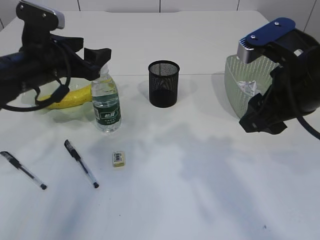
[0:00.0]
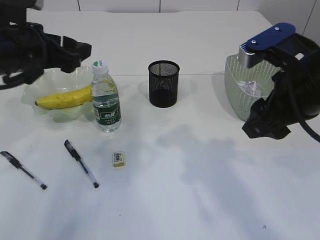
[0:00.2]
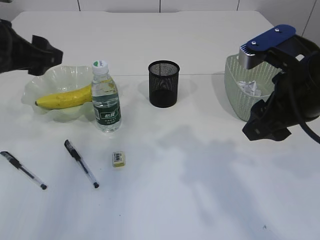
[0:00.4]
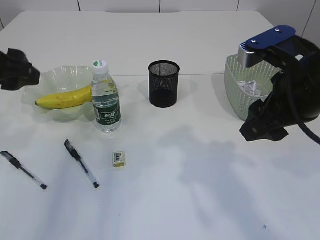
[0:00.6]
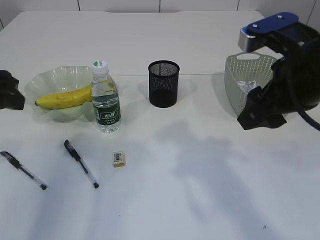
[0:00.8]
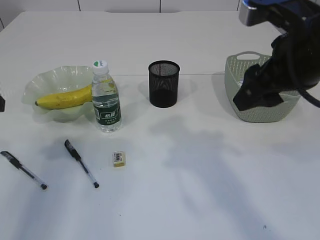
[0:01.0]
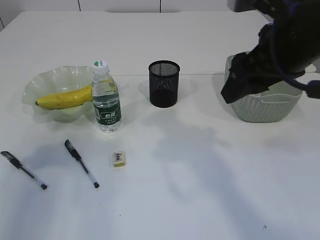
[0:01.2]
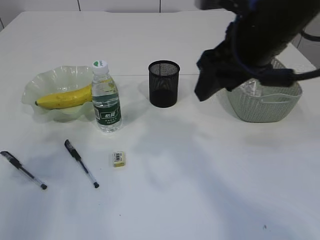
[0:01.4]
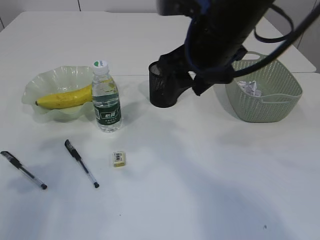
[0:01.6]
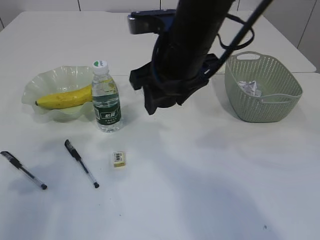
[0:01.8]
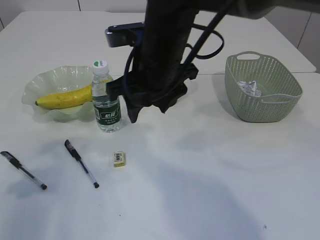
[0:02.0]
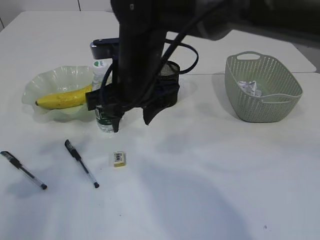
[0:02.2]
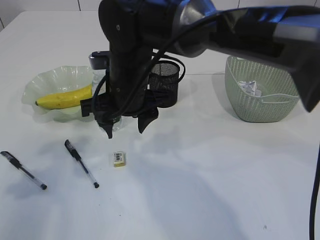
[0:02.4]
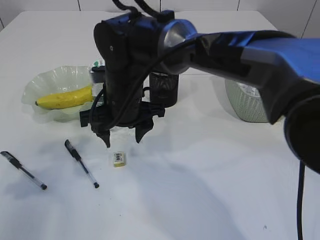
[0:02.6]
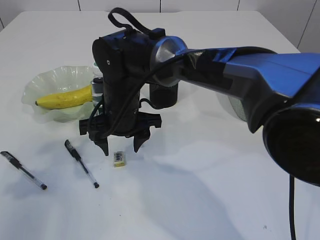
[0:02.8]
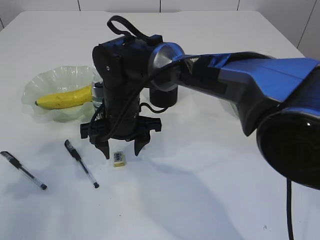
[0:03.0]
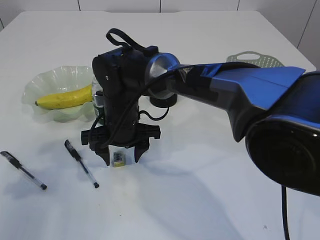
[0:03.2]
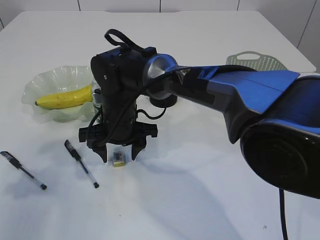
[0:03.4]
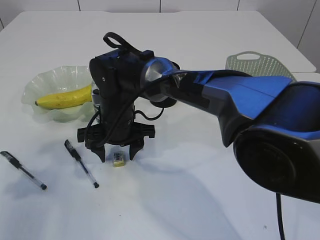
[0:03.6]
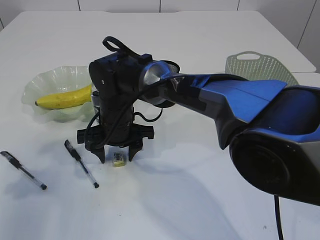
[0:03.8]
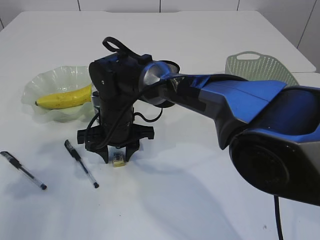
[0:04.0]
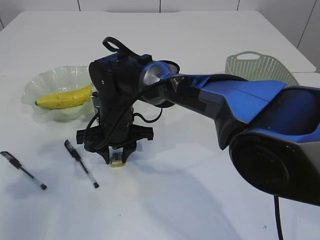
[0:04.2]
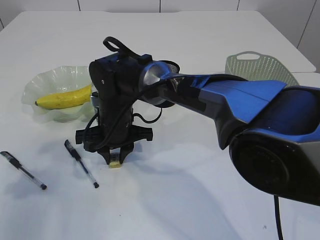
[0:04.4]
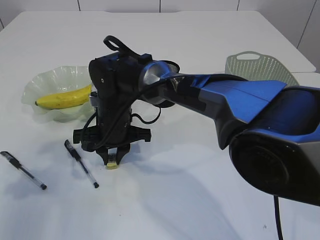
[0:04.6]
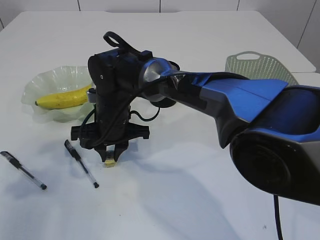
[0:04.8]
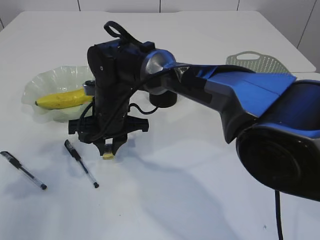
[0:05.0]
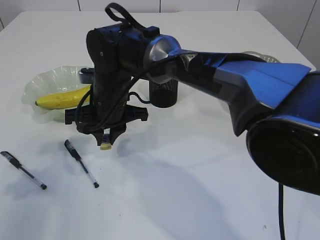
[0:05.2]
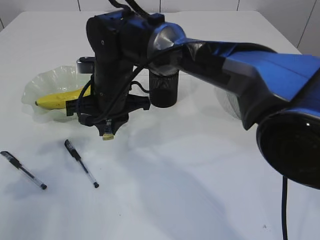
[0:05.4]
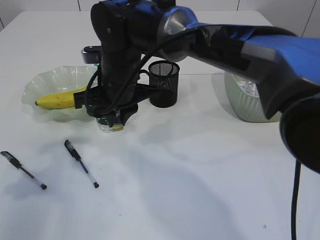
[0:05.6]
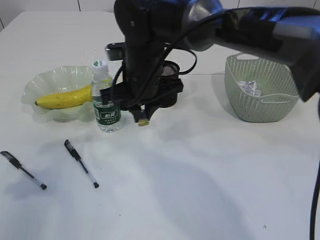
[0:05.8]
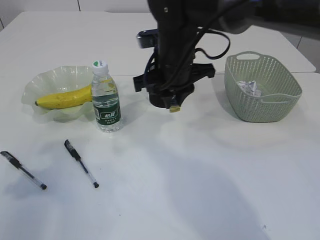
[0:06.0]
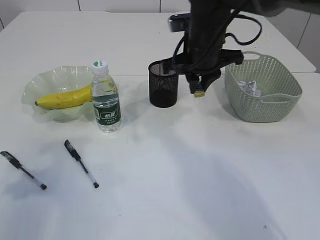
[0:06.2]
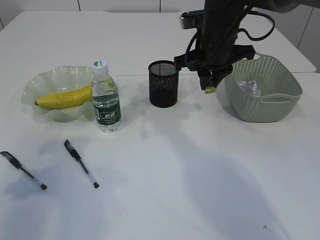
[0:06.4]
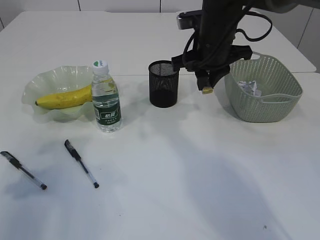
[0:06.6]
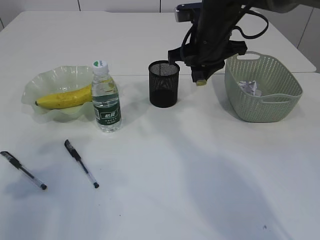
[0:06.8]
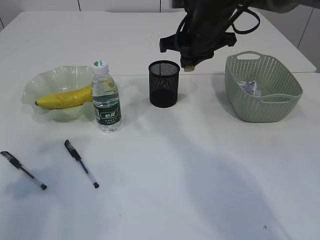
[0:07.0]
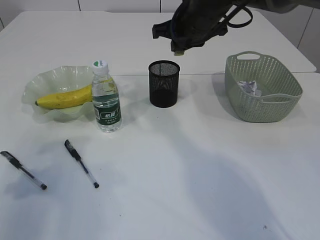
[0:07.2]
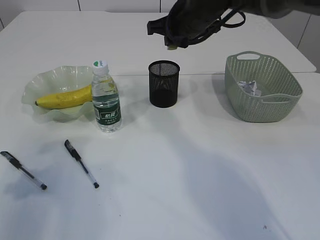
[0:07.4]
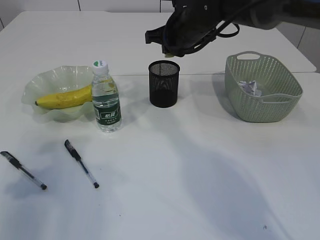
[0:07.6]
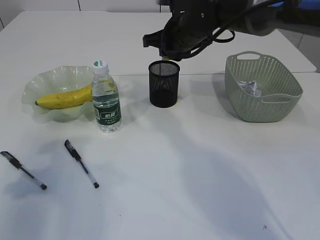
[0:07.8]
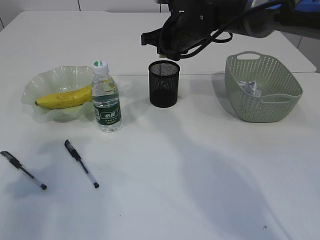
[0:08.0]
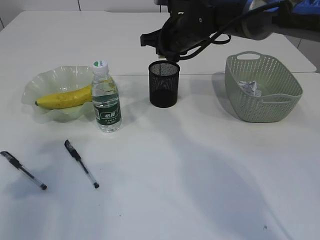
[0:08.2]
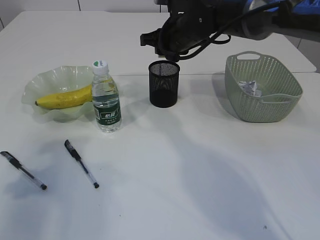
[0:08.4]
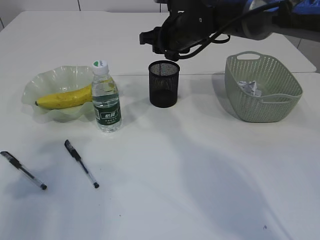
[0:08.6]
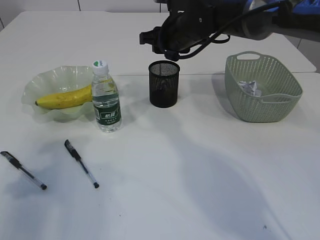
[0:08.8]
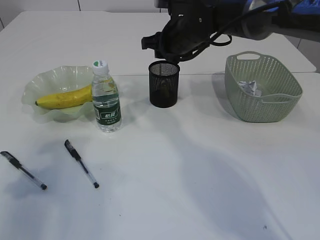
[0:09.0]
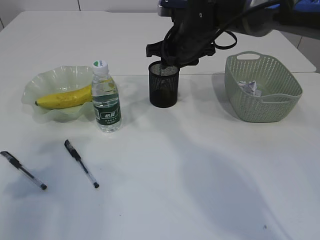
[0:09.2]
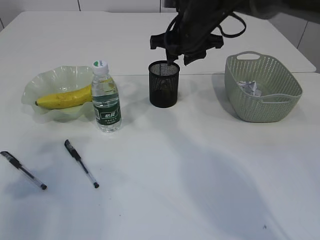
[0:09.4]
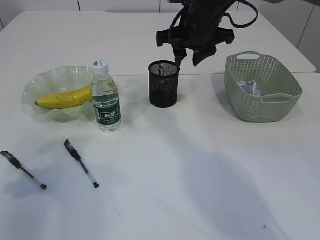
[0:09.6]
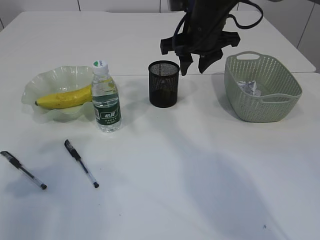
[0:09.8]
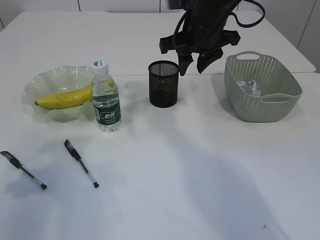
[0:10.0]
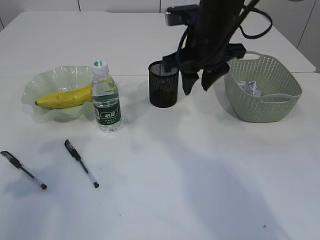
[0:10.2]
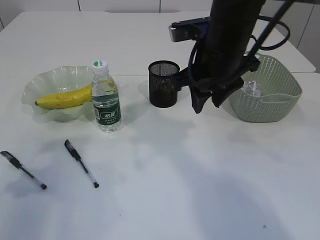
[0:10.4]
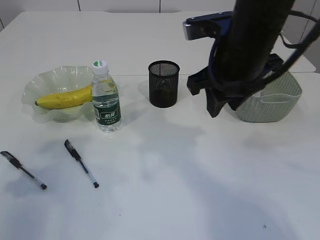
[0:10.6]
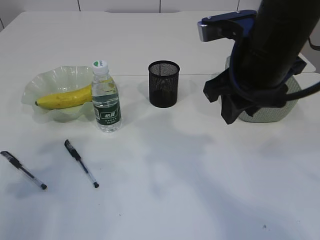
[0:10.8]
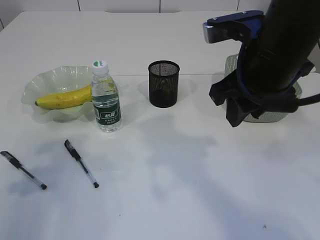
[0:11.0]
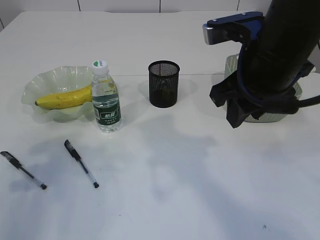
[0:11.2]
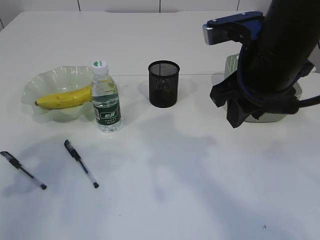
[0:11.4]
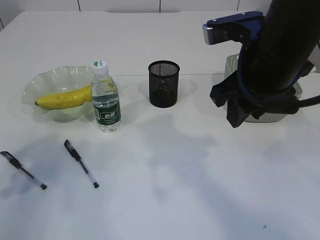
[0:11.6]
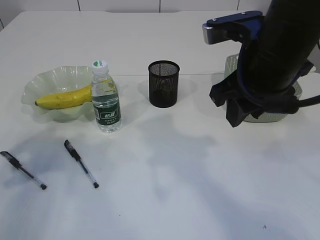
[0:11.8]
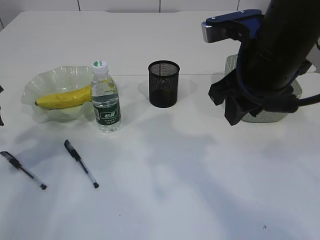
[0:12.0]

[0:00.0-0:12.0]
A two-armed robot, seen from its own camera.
Step, 0:00.2 to 0:05.2: Pick up the eraser.
Step, 0:05.4 to 0:09.4: Place the eraser into the pen holder.
0:00.0 to 0:01.6: The right gripper goes roughly 10 cm to the left and forward; the left gripper goes some 20 cm backward and to the left.
0:01.6 to 0:03.0: The right gripper is displaced downward and to the left by approximately 20 cm.
0:03.0 to 0:04.4: The right gripper closes up.
0:04.4 to 0:06.0: The right gripper is displaced upward and to the right by approximately 15 cm.
0:06.0 to 0:07.6: The right gripper moves forward, some 10 cm.
0:07.6 to 0:09.0: The right gripper opens its fingers.
0:09.0 to 0:10.4: The right gripper goes some 15 cm backward.
0:10.4 to 0:12.0: The right gripper is displaced backward by approximately 5 cm. Meanwhile the left gripper moves forward, roughly 10 cm.

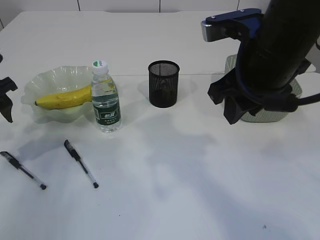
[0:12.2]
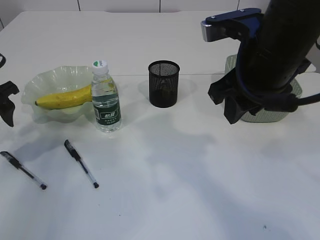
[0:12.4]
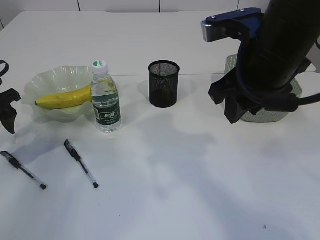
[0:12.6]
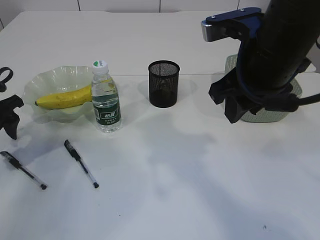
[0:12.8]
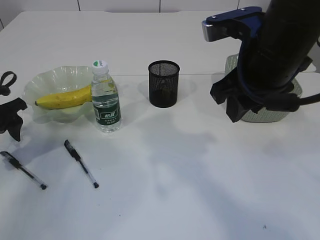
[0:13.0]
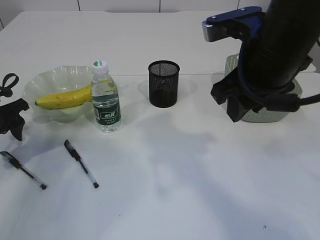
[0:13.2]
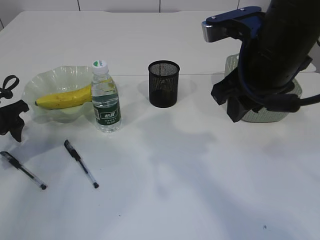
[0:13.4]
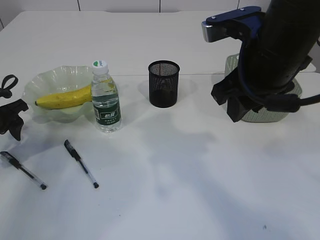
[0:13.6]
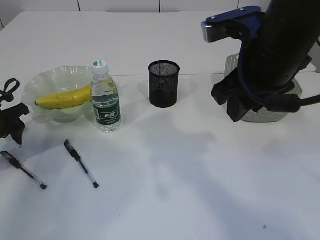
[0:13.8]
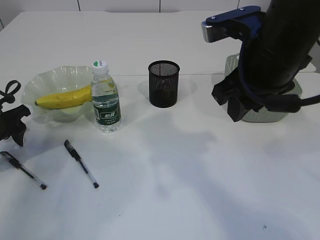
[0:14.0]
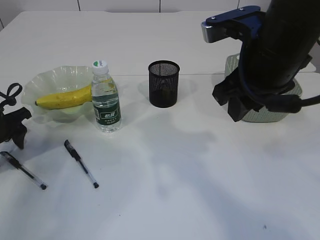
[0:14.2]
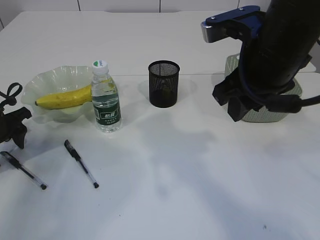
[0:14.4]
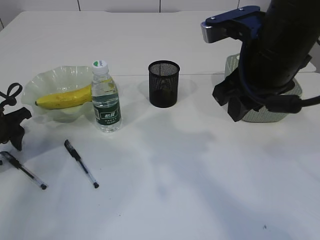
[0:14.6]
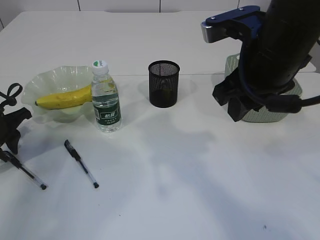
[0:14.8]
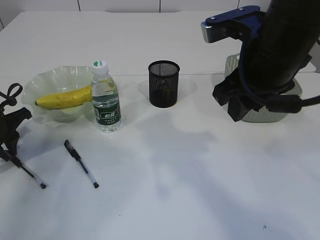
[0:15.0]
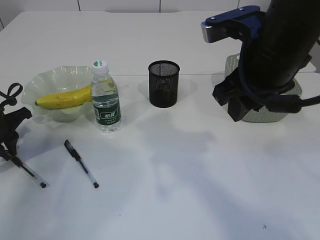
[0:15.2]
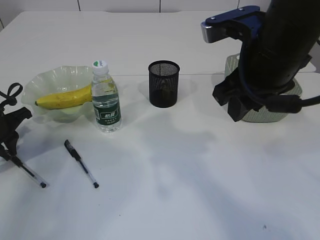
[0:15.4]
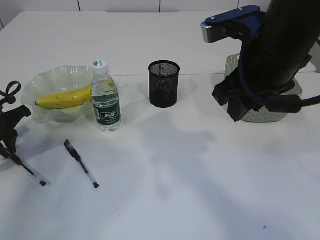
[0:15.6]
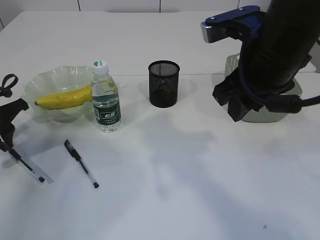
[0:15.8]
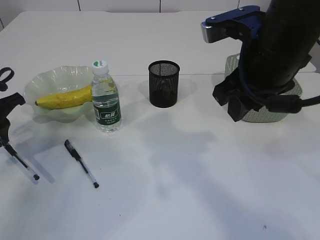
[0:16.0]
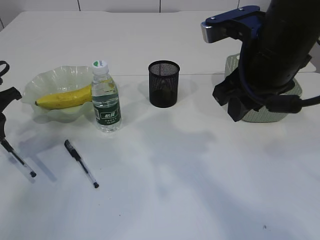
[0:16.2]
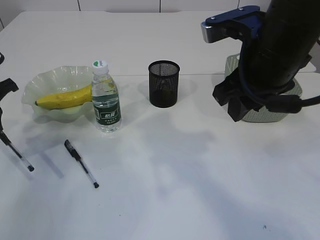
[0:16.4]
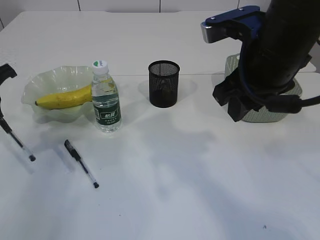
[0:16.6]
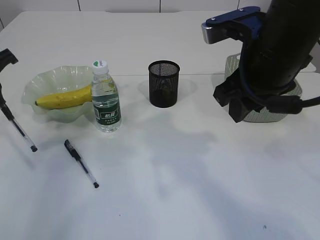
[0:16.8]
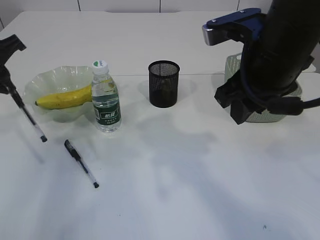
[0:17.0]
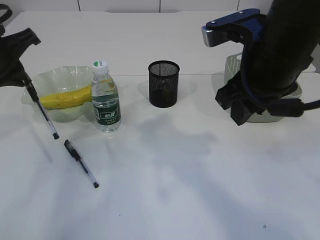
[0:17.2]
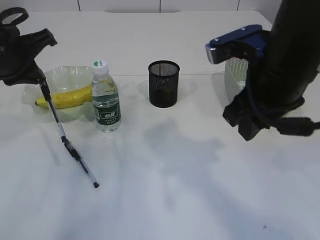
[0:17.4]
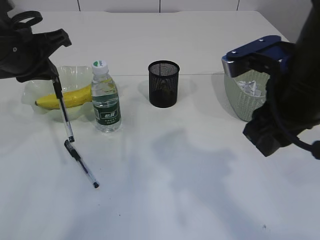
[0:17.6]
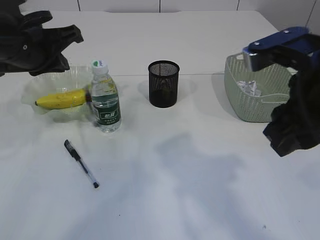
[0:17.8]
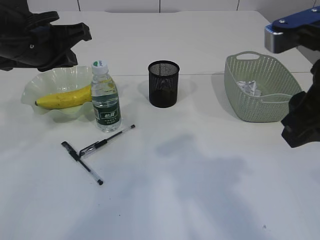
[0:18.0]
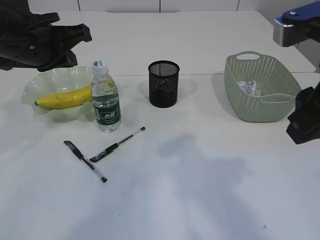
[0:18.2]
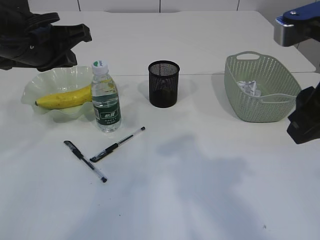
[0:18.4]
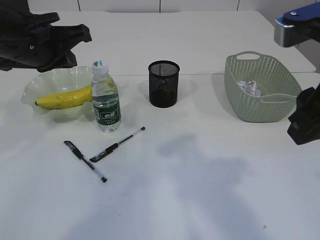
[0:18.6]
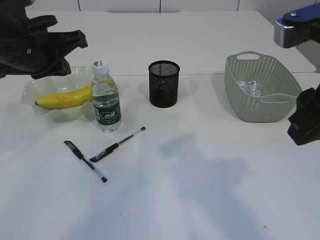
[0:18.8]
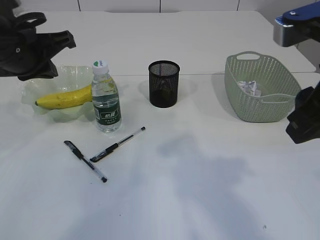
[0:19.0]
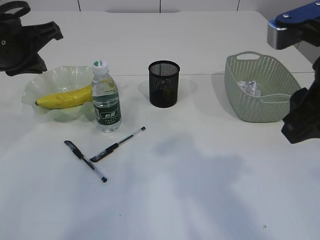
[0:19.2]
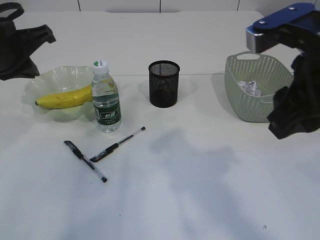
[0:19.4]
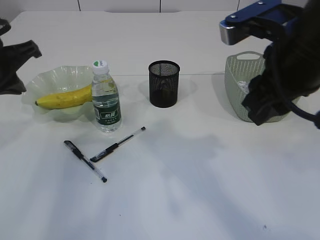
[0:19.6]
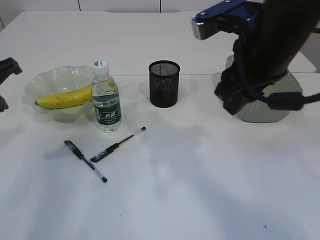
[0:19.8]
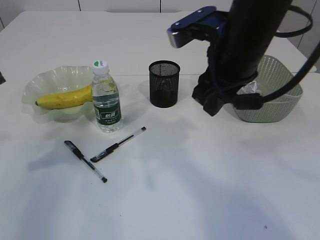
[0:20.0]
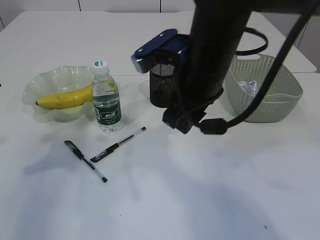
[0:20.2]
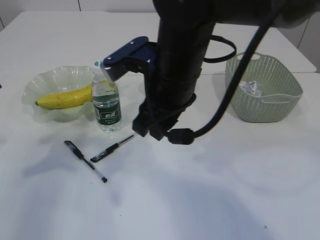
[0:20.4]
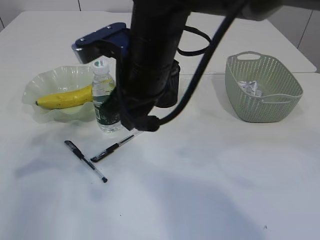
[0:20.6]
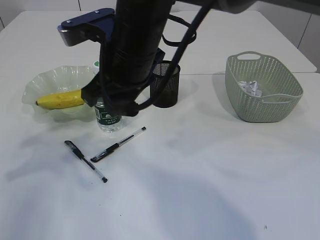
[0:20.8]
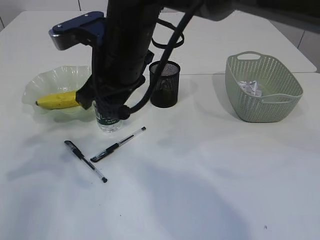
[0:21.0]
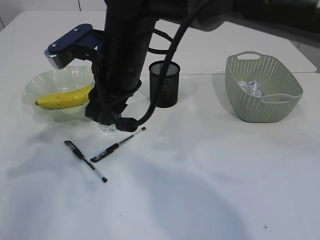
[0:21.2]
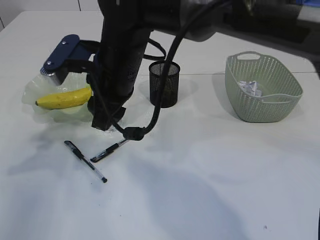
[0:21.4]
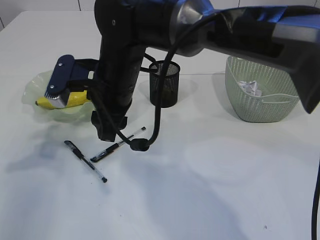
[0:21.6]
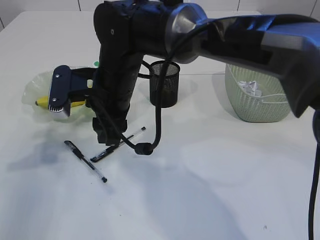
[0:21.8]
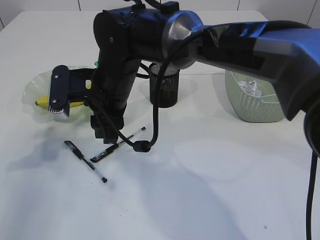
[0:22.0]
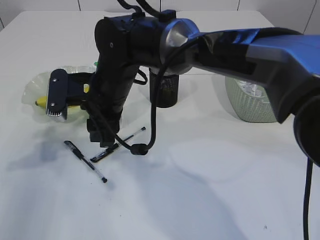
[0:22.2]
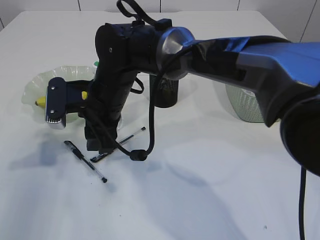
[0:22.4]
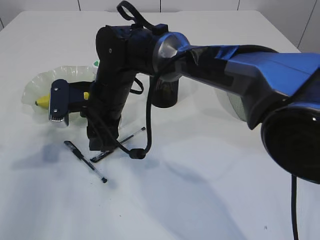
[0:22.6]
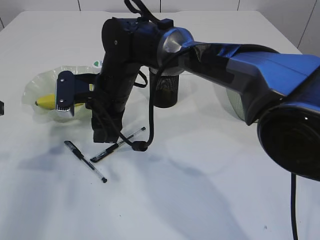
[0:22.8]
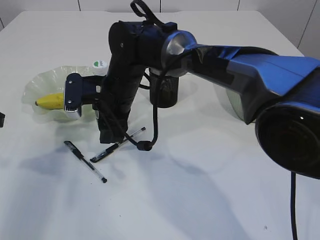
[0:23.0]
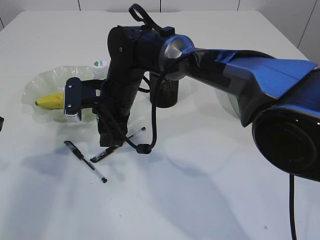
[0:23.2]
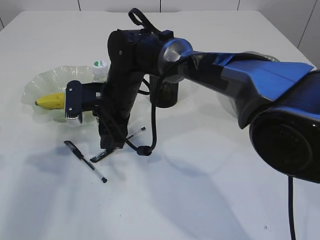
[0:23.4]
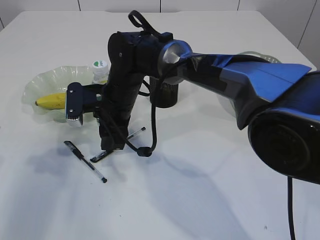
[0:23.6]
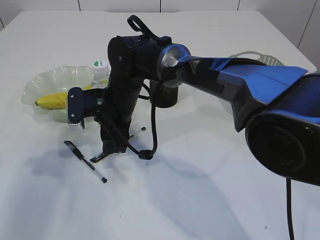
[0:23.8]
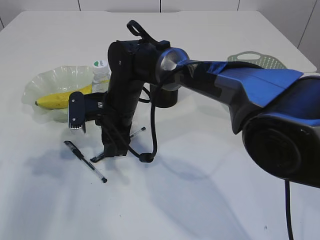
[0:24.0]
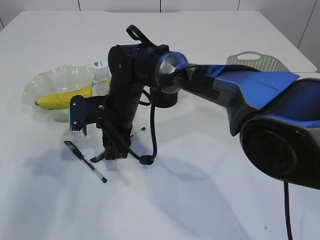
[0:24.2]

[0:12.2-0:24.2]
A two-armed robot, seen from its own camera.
0:12.2 to 0:13.8: The left gripper moves downward, some 5 cm.
0:13.8 to 0:15.2: The left gripper closes.
0:15.2 to 0:16.6: The left gripper goes about 10 cm upward.
0:16.6 to 0:18.2: The right gripper shifts some 10 cm backward, while the left gripper heads to the right and upward, covering approximately 15 cm.
0:18.2 to 0:19.8: The left gripper heads to the left, covering roughly 10 cm; the right gripper heads forward and to the left, covering some 10 cm.
0:19.8 to 0:21.2: The left gripper goes about 5 cm to the left, while the right gripper is displaced to the left by about 15 cm.
0:21.2 to 0:22.6: The right gripper is displaced downward by about 10 cm.
0:22.6 to 0:24.2: The left gripper opens up.
